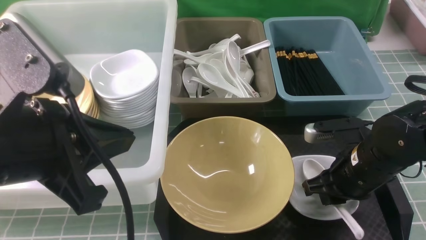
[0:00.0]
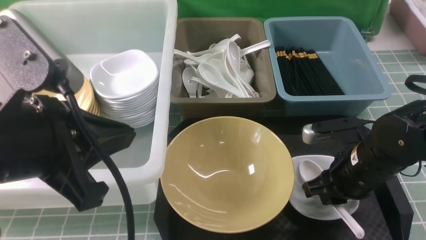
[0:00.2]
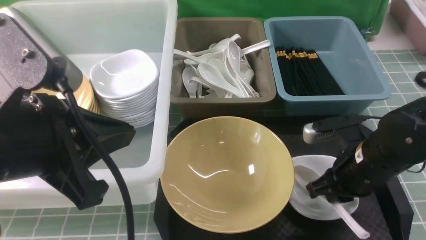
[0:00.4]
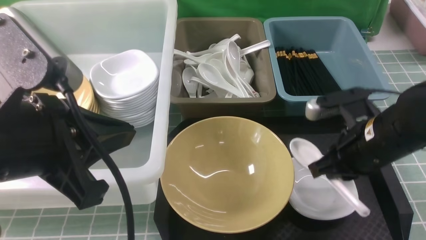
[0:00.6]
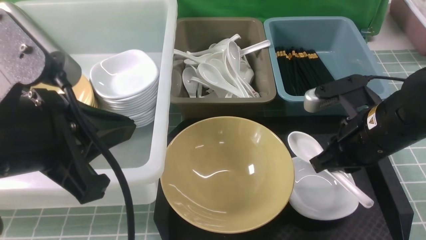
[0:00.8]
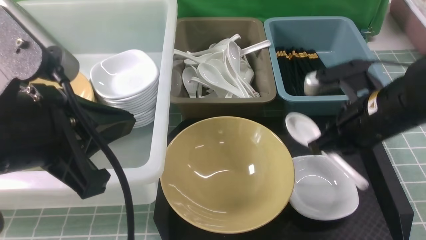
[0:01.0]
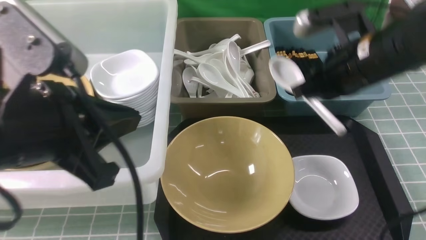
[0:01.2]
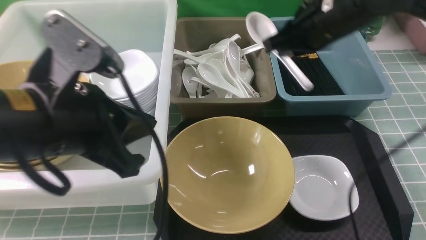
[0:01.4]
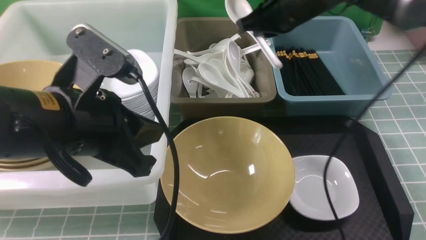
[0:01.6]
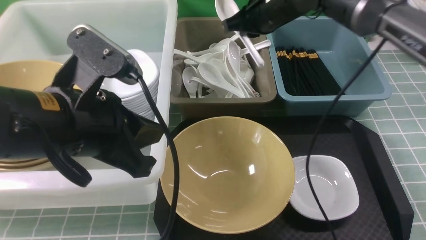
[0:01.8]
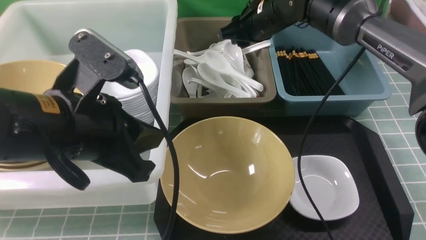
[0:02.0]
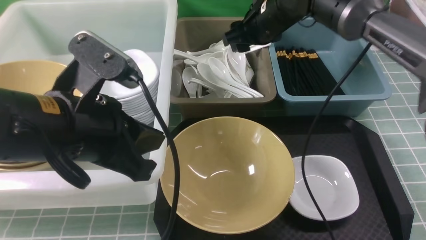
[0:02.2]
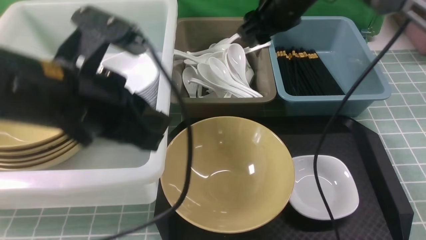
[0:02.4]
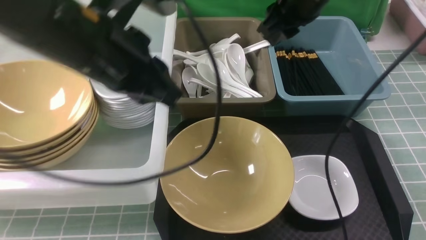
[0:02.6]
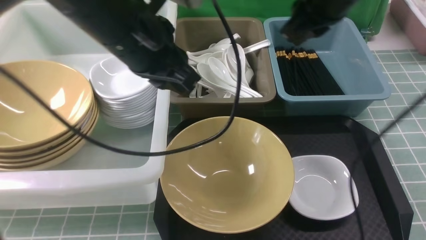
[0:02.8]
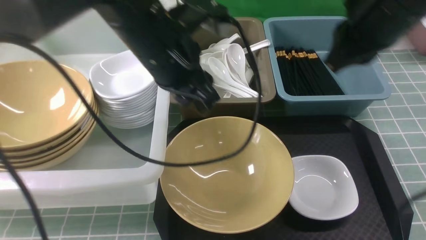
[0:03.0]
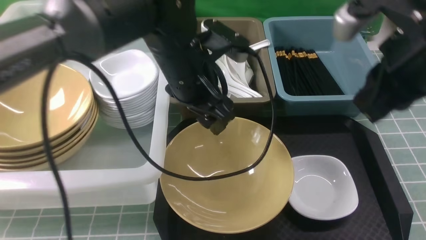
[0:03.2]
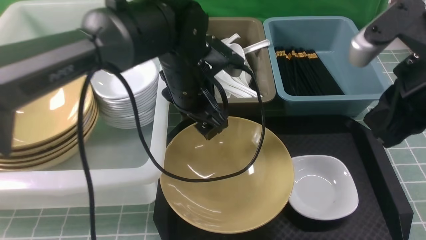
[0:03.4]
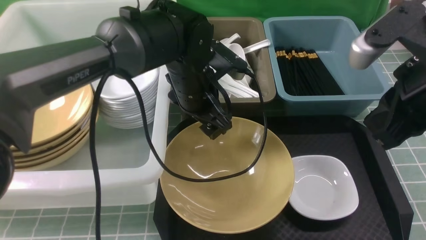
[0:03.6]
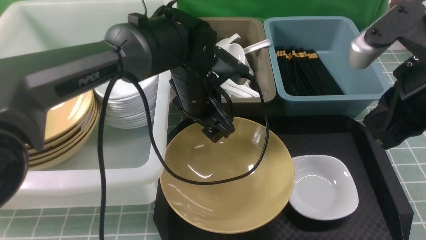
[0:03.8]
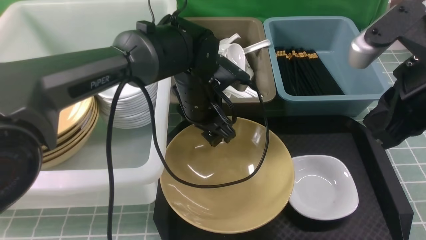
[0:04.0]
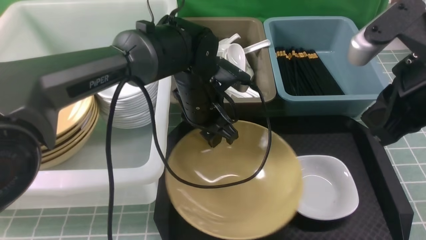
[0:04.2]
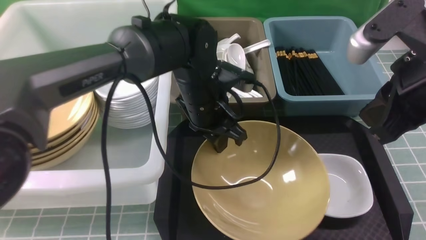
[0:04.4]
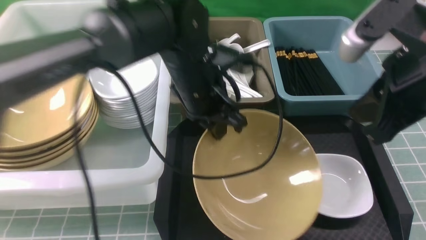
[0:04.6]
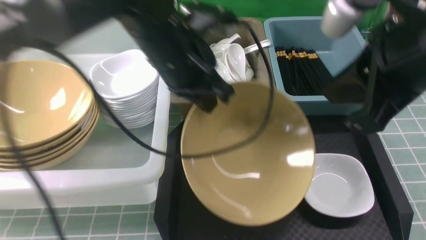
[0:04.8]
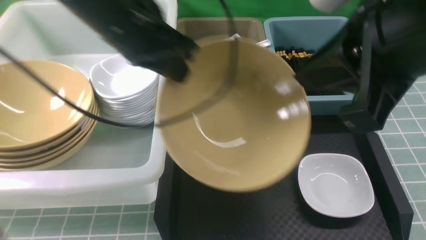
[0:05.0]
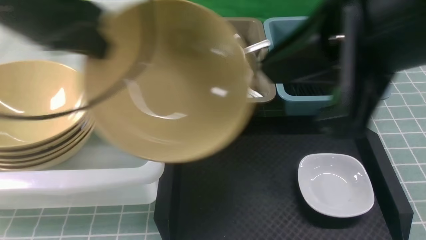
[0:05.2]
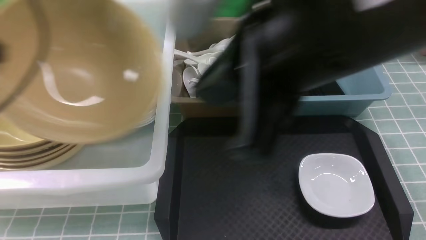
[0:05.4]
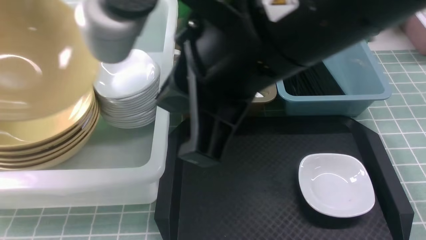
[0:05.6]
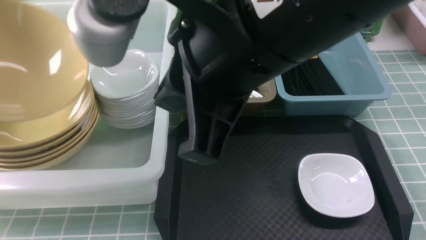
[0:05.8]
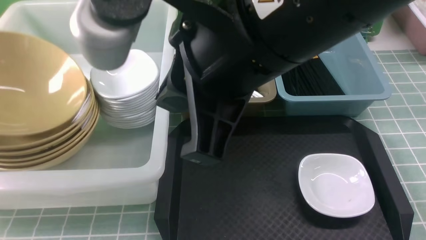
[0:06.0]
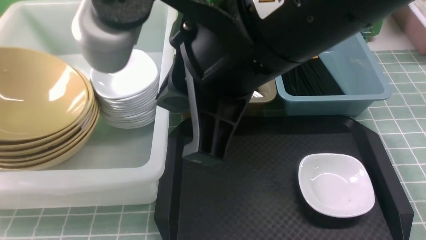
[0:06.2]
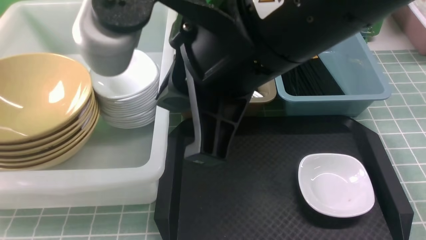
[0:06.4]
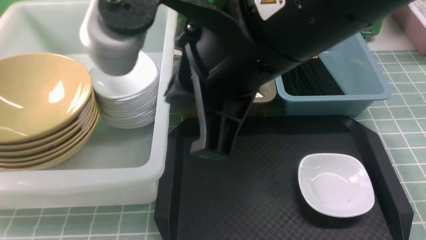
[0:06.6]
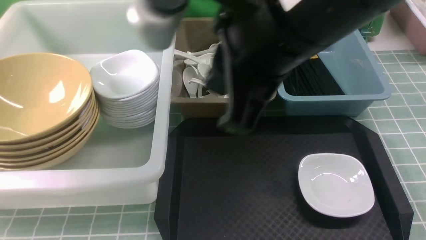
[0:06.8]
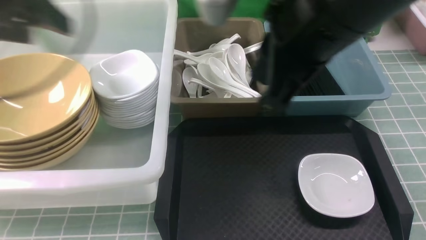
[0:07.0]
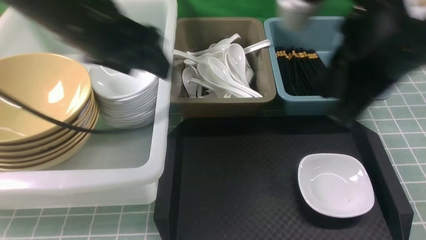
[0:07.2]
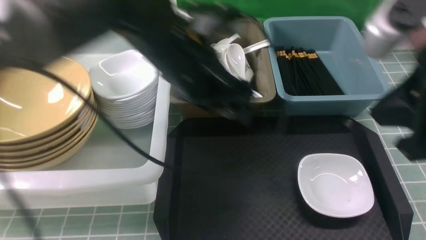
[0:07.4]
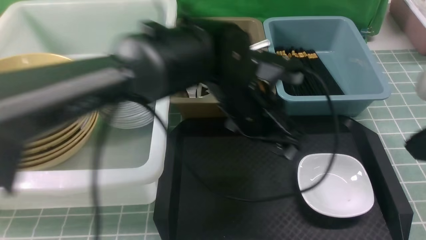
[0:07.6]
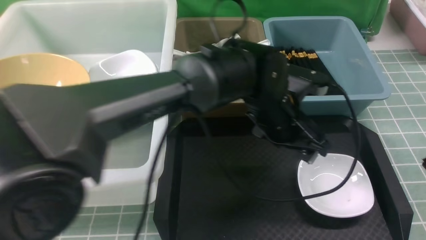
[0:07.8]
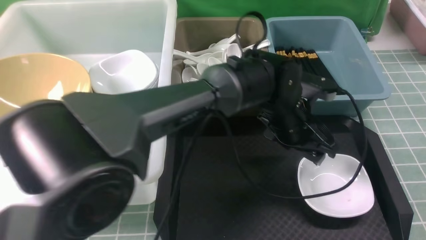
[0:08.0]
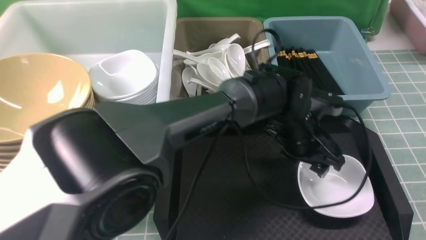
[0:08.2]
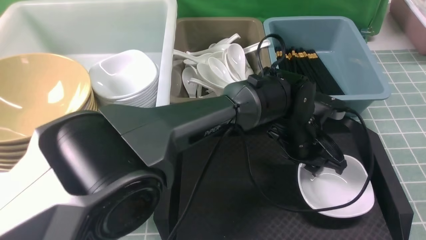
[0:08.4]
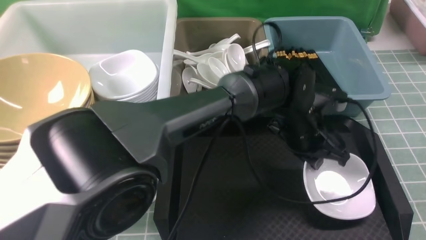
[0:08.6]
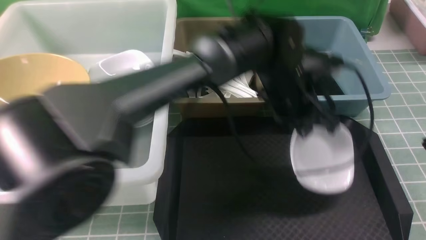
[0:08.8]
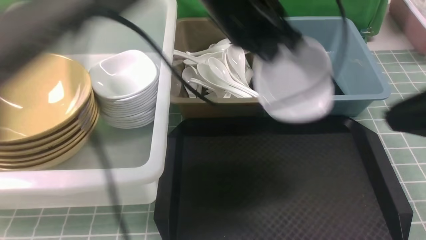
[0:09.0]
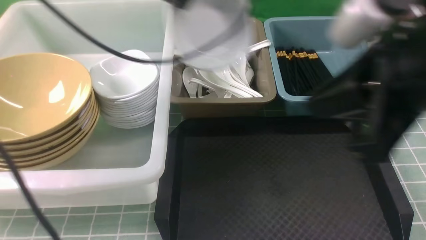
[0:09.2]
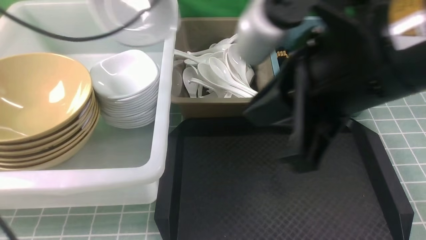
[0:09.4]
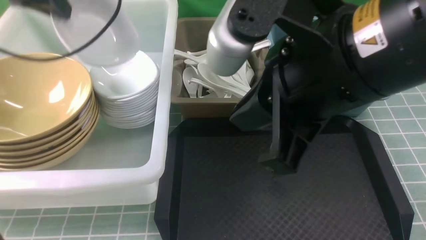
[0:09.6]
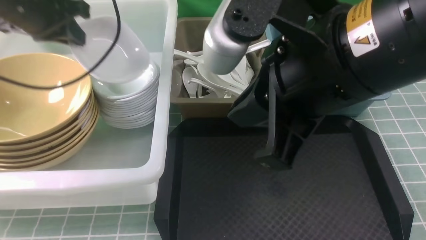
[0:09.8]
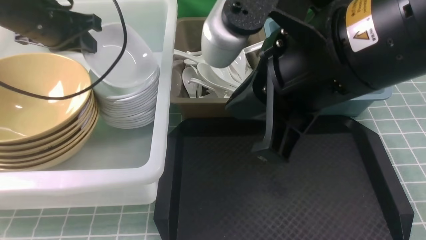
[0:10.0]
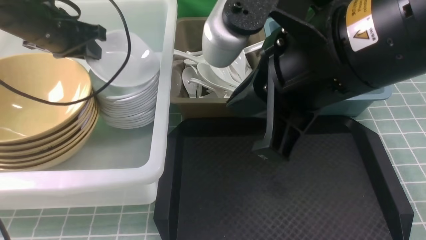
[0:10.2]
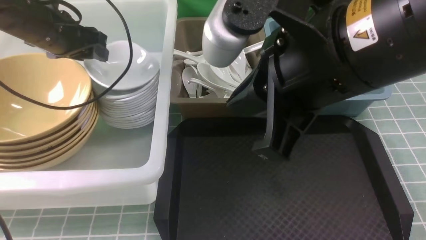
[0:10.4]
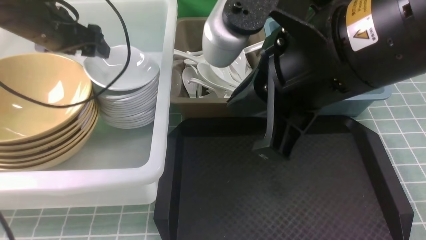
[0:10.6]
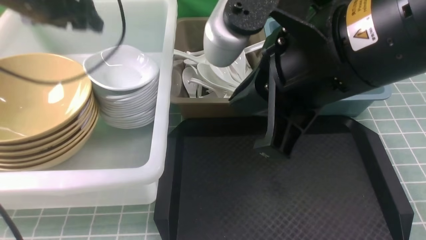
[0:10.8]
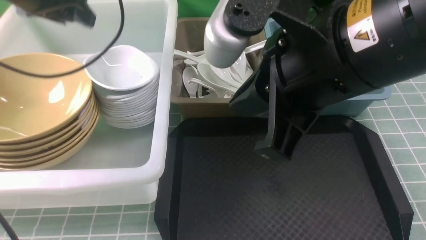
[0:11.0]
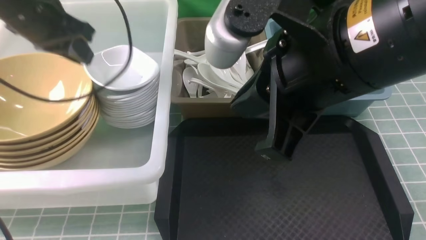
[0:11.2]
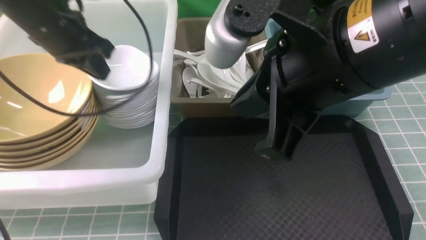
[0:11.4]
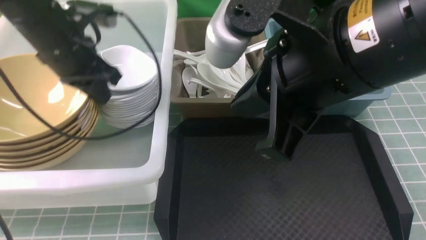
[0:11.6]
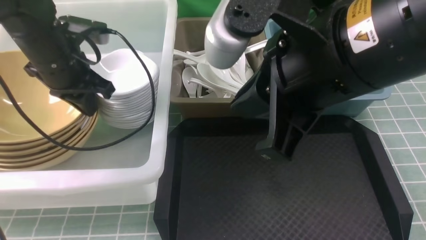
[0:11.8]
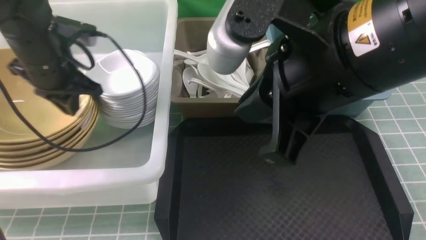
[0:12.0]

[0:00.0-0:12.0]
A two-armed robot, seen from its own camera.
Task of the whole recording: on blue table put chopsticks spoon bowls plates into blue grey white boxes.
Step, 0.8 to 2.2 s: use the right arm to put the soup spoon into the small storage box in the middle.
Step, 2.4 to 4.8 s: use the left arm to grab the yellow noodle bowl on the left.
Step, 5.0 to 6.6 s: use the left arm to put the noodle bowl into the large storage box on the left.
Step, 6.8 to 8.6 s: use the left arm to grab the plate.
Step, 9.0 to 10.6 s: use the left arm to put the plate into the large storage box on the left.
0.0 to 1.6 s: The left gripper travels forward by some 5 cm. The right gripper shifts some 25 cm forward, upward and to the left, and closes its fingers.
1.6 to 3.0 s: The right gripper heads backward, to the right and upward, covering approximately 20 cm, and opens, then closes again, while the left gripper travels forward and to the right by roughly 15 cm, and opens its fingers.
3.0 to 4.4 s: The left gripper is displaced downward by approximately 10 cm, and closes up; the right gripper moves backward, approximately 5 cm.
4.4 to 6.0 s: The left gripper goes about 40 cm to the left, while the right gripper is displaced to the left and upward by about 20 cm.
6.0 to 7.6 s: The left gripper moves to the right, approximately 50 cm, and opens up. The right gripper travels to the right by roughly 20 cm.
7.6 to 9.0 s: The left gripper goes some 15 cm upward and to the left, and closes.
9.0 to 10.4 s: The right gripper goes roughly 10 cm to the left; the left gripper heads to the left, covering some 25 cm, and opens up.
10.4 to 12.0 s: The left gripper heads backward, covering about 5 cm, and closes.

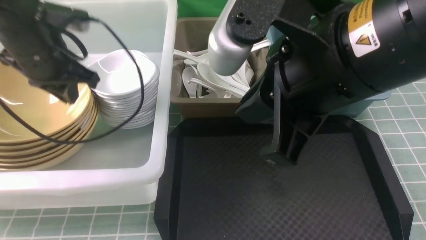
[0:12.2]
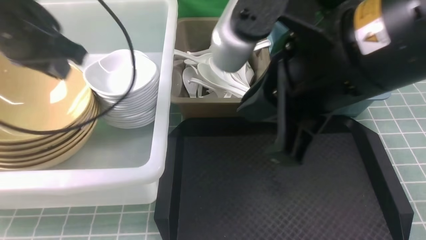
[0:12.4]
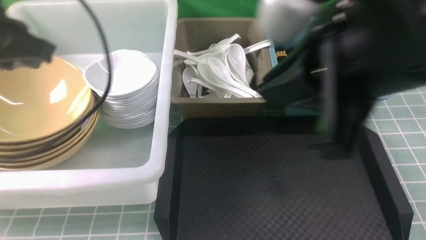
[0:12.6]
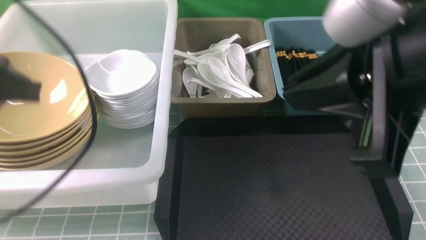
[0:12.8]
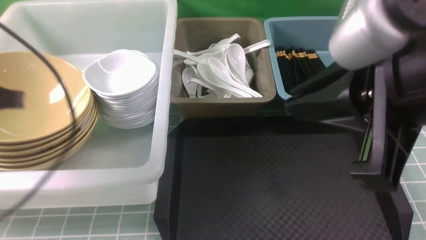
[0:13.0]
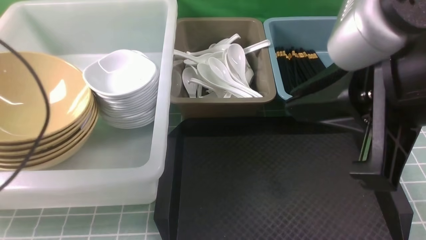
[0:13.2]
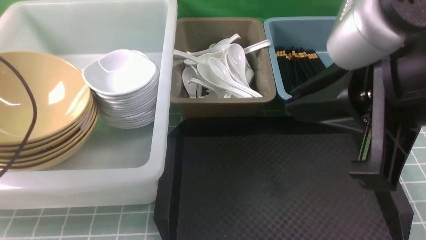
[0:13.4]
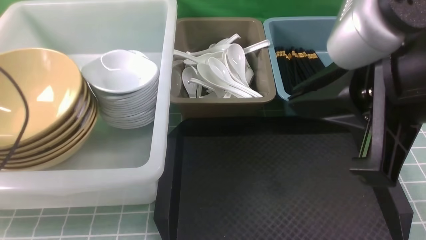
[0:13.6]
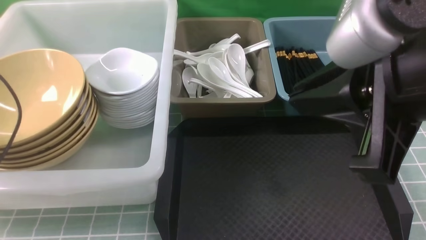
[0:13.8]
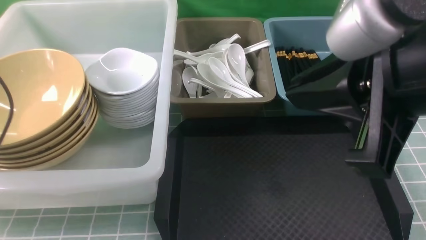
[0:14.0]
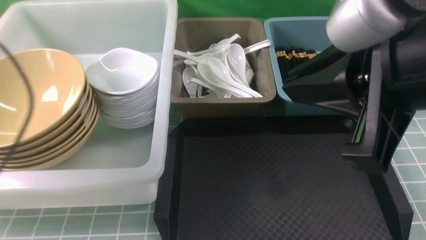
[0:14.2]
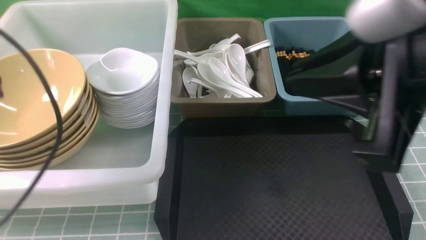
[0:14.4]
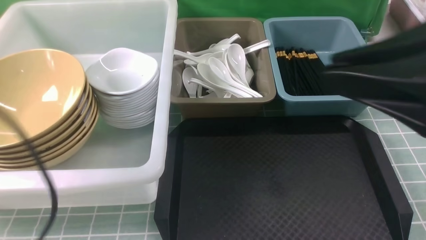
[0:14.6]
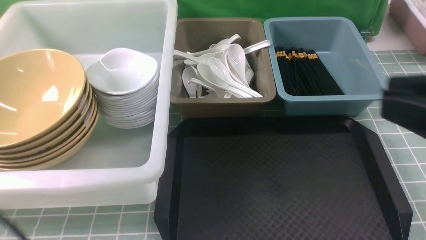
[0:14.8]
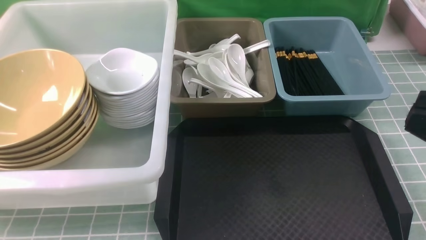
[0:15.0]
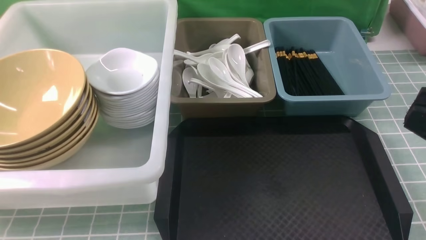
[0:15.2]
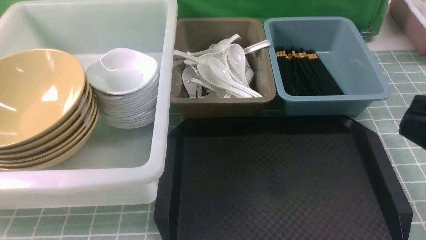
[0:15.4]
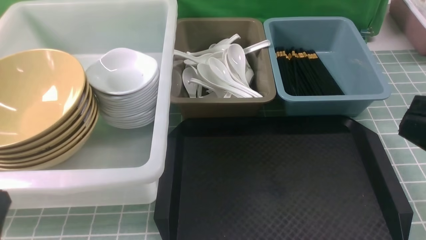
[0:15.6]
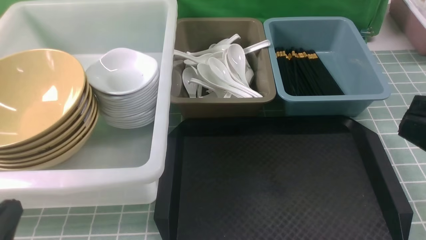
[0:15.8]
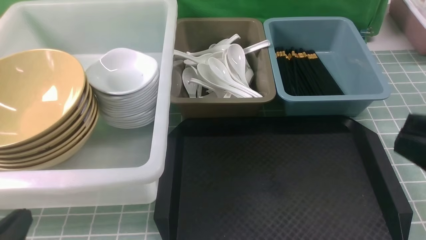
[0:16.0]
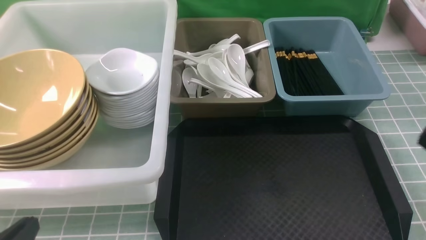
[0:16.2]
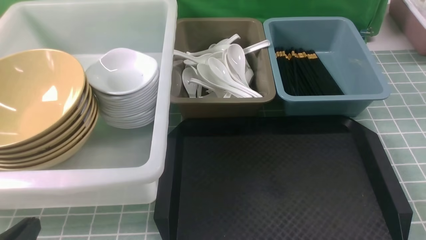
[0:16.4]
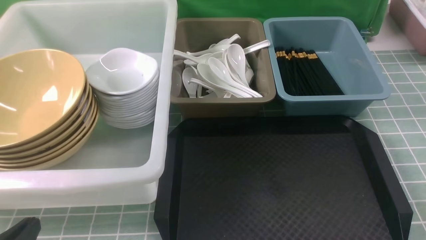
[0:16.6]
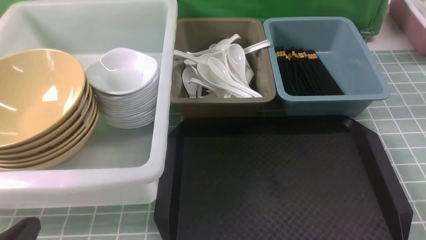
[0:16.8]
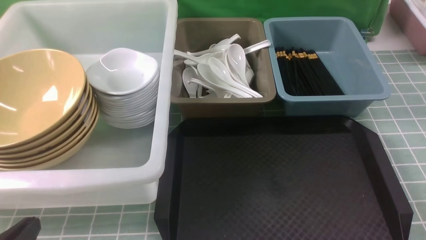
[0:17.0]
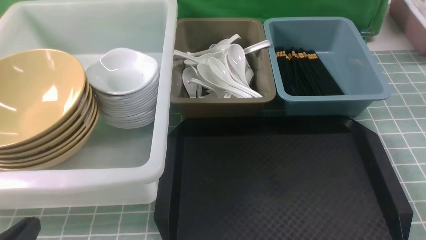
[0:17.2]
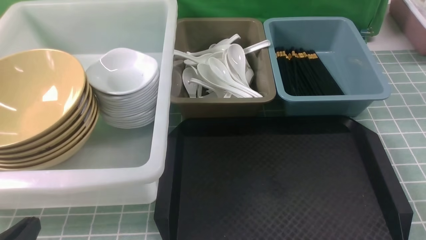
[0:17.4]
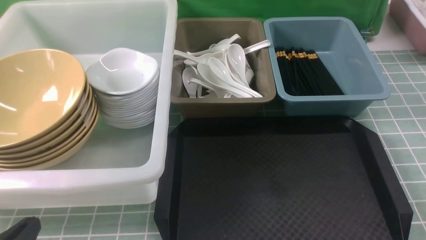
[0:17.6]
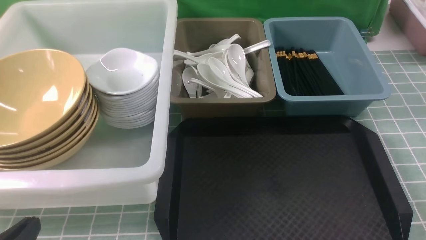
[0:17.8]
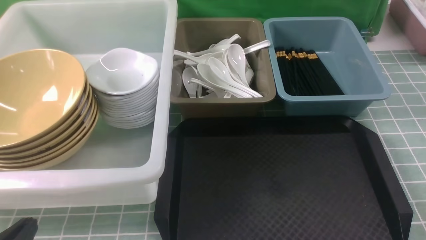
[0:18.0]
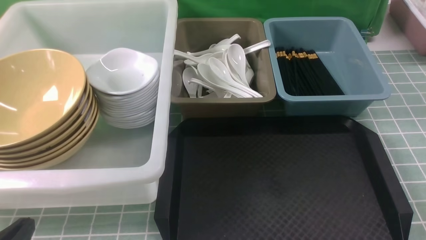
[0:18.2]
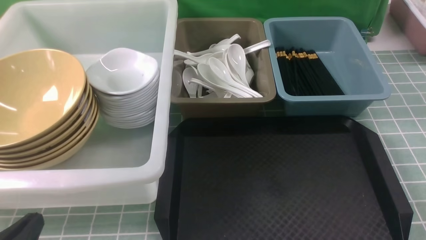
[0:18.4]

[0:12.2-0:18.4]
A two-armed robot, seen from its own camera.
Task of the whole recording: on blue table put chopsticks spoon bowls plates into blue grey white boxes.
12.2 to 13.8 s: The right gripper travels to the right by some 5 cm, while the left gripper moves to the left and backward, some 15 cm.
13.8 to 15.4 s: The left gripper heads backward and to the right, covering roughly 25 cm; the right gripper travels to the right and backward by roughly 10 cm.
15.4 to 16.8 s: The left gripper shifts about 5 cm downward, while the right gripper travels downward and to the right by approximately 20 cm.
